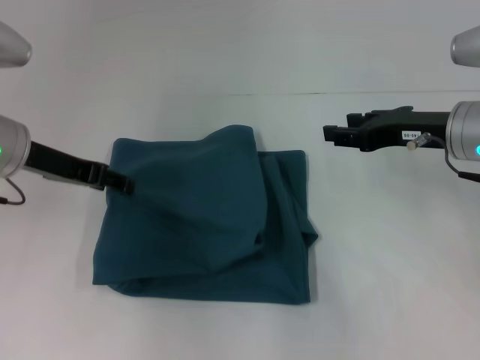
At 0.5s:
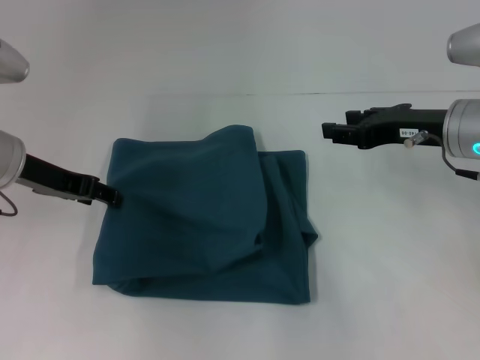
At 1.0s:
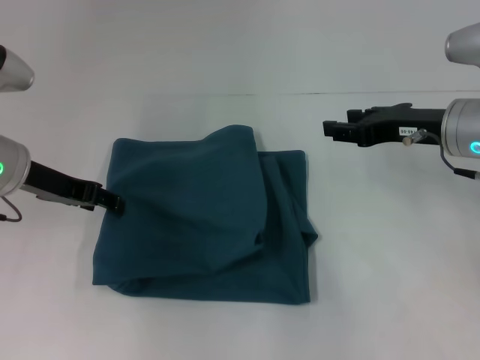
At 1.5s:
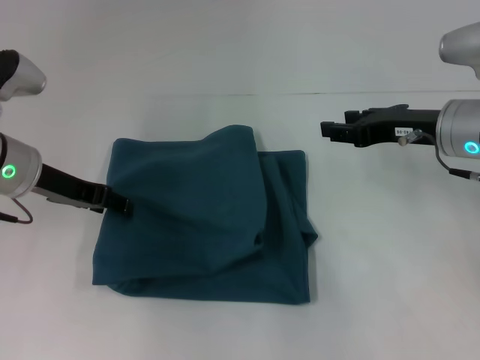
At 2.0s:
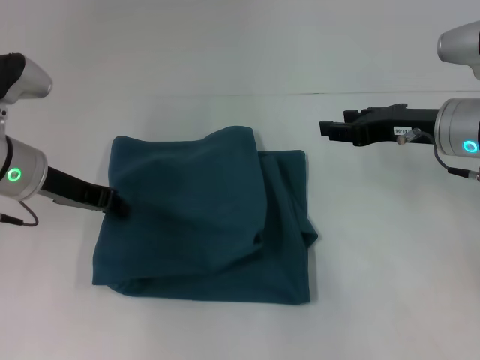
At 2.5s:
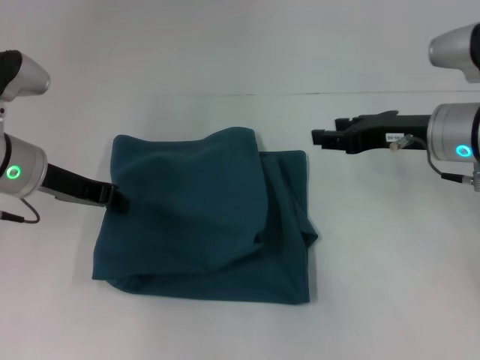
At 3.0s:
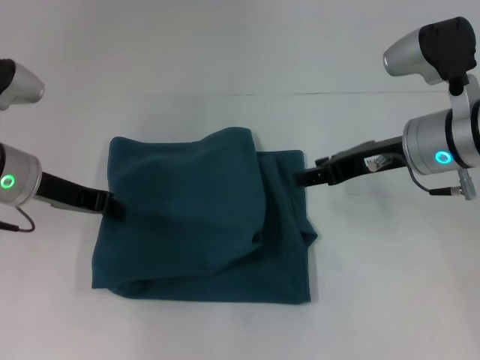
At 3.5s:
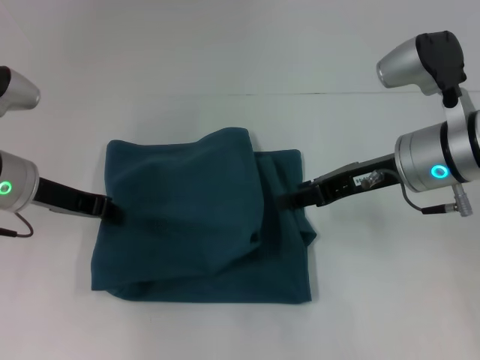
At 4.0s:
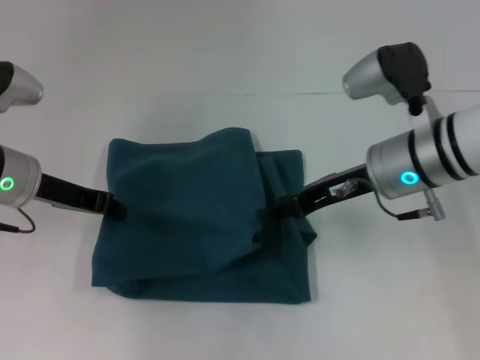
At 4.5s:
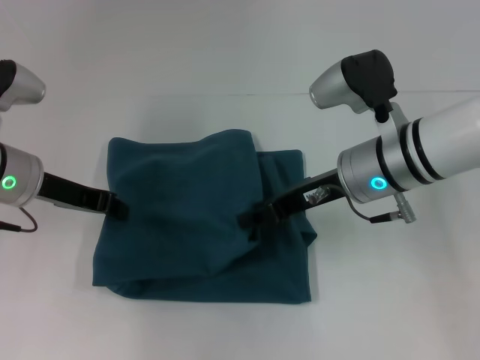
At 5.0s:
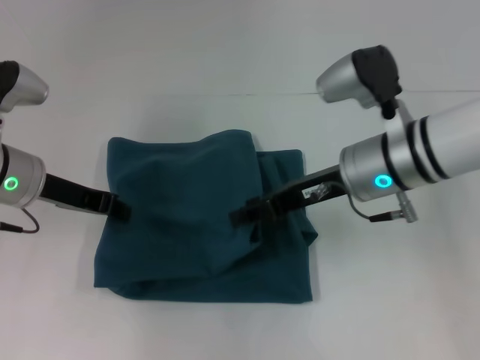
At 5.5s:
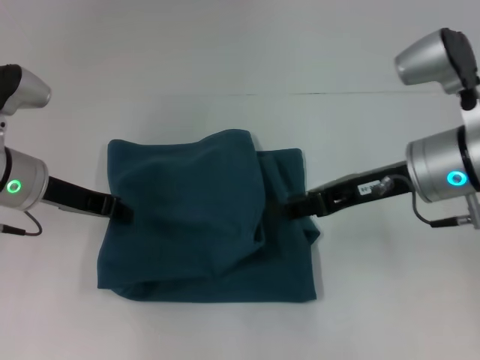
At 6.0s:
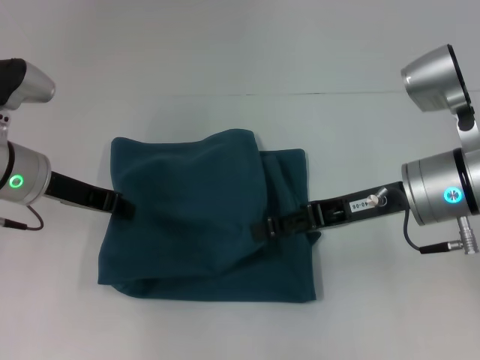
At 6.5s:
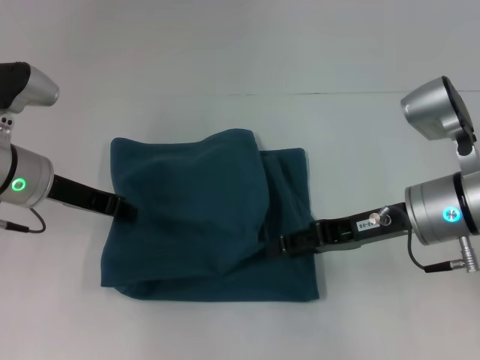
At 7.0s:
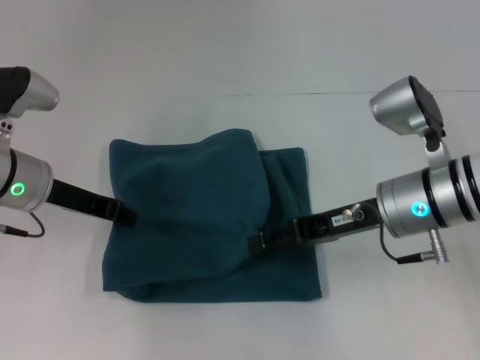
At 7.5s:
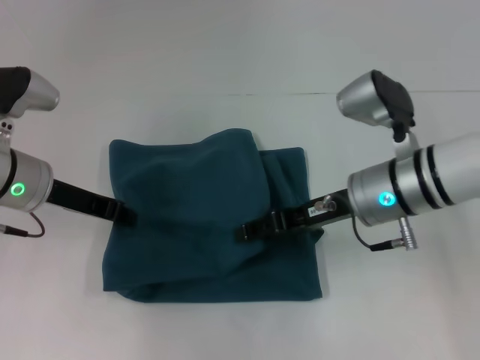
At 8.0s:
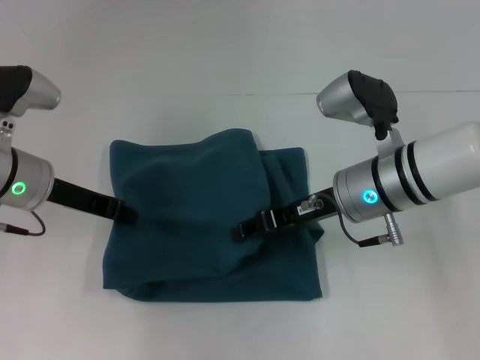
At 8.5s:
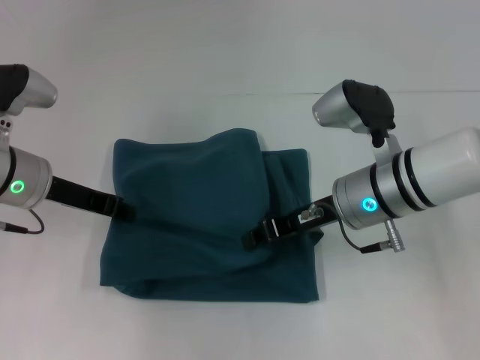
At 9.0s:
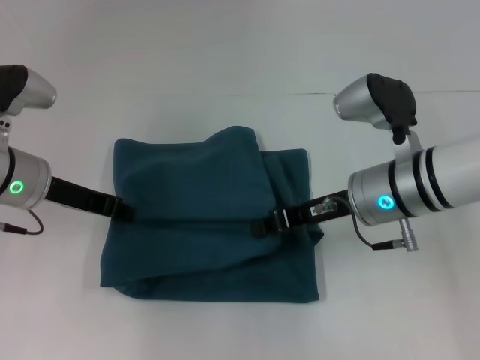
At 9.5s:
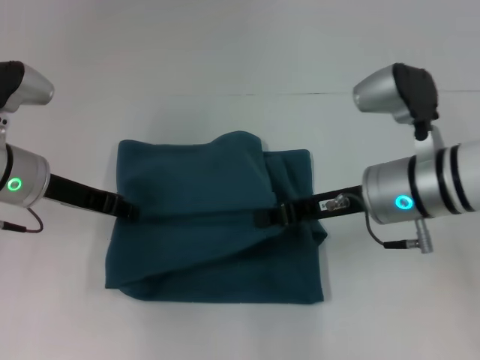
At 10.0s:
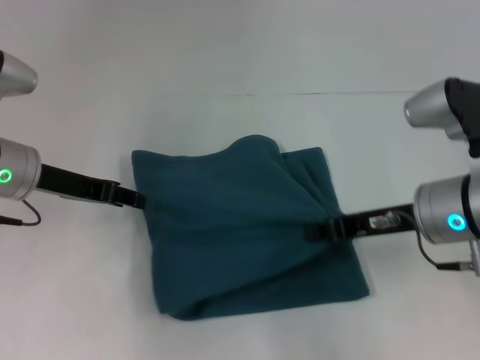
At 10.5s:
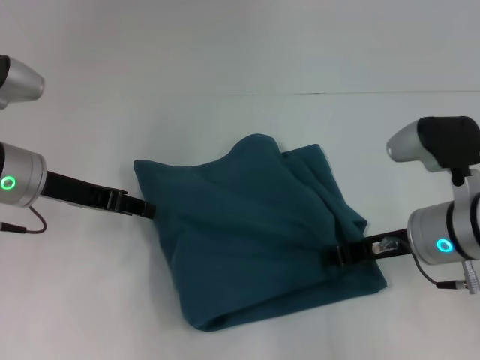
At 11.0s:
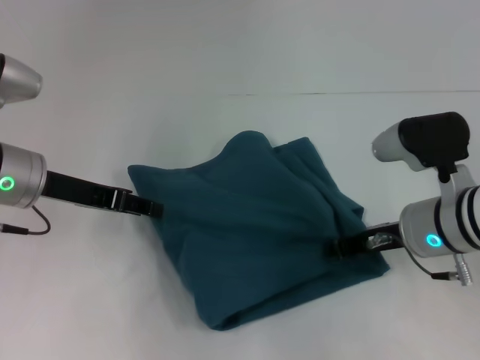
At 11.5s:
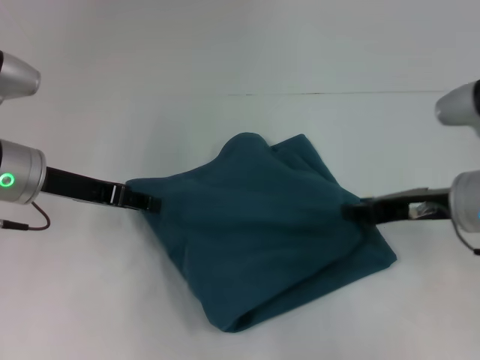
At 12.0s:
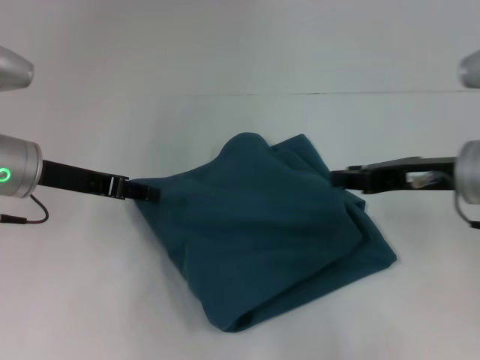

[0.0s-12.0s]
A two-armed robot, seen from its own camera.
0.0s to 2.0s: The left gripper closes.
2.0s to 4.0s: The right gripper shifts approximately 5 cm to the left.
6.0s to 8.0s: The right gripper shifts by some 5 cm.
8.0s to 10.0s: The left gripper opens up. Meanwhile the right gripper is displaced to the right and backward by some 10 cm, and closes.
10.0s to 12.0s: The right gripper opens its fingers.

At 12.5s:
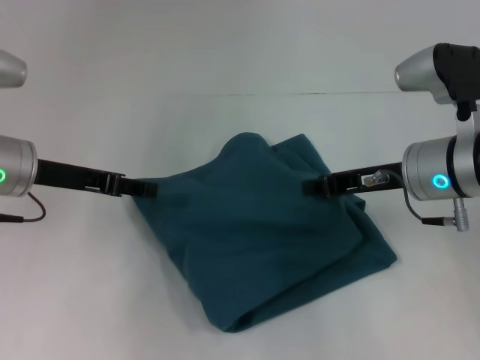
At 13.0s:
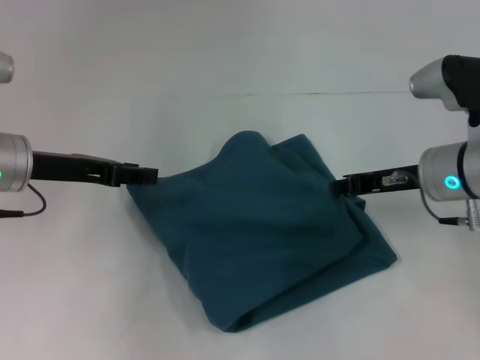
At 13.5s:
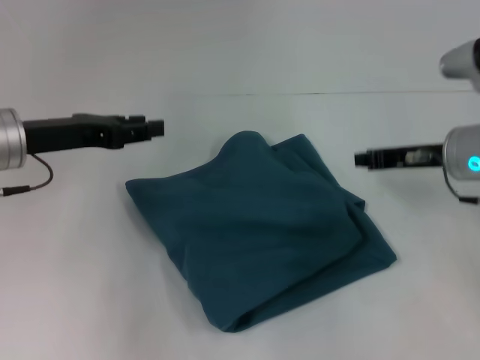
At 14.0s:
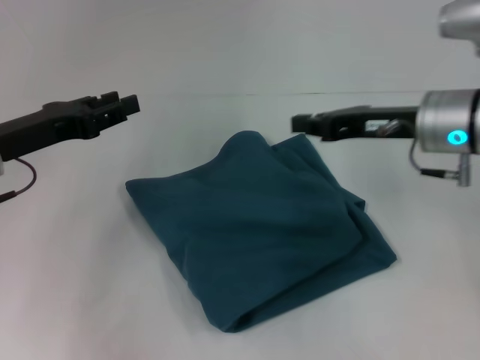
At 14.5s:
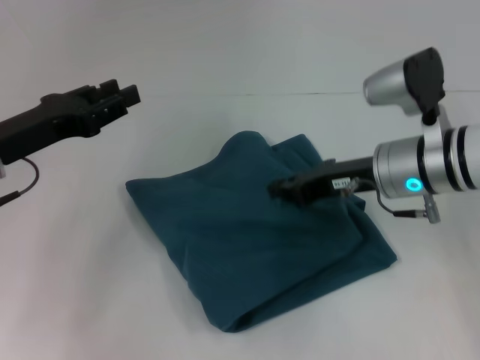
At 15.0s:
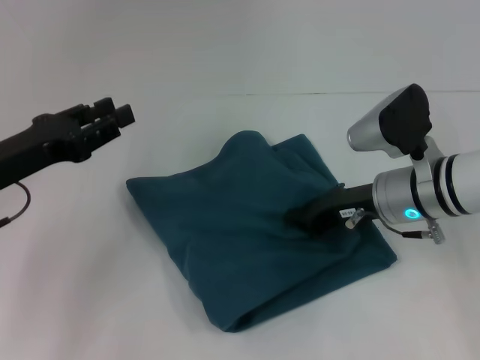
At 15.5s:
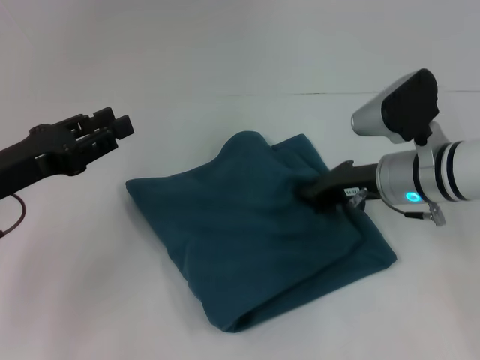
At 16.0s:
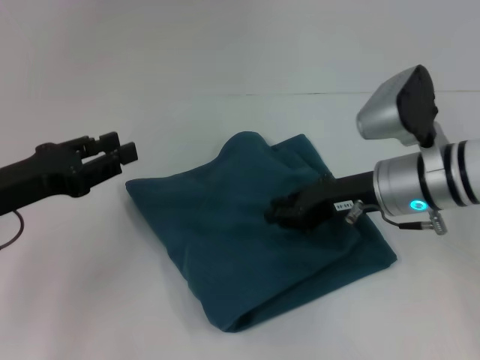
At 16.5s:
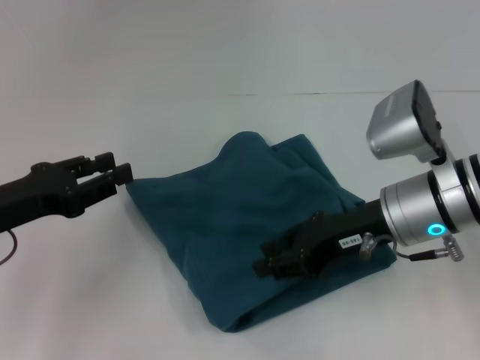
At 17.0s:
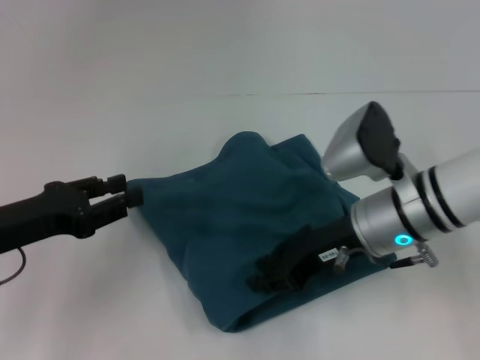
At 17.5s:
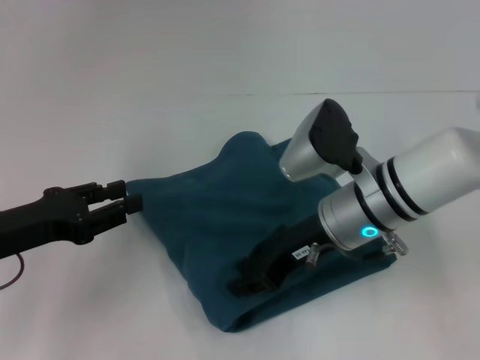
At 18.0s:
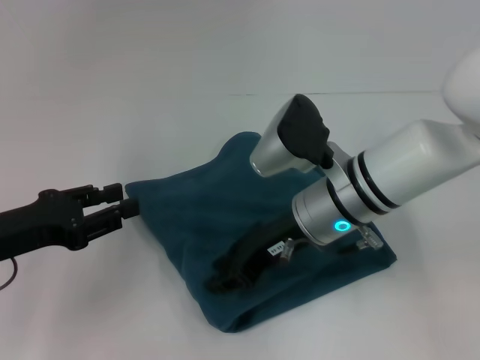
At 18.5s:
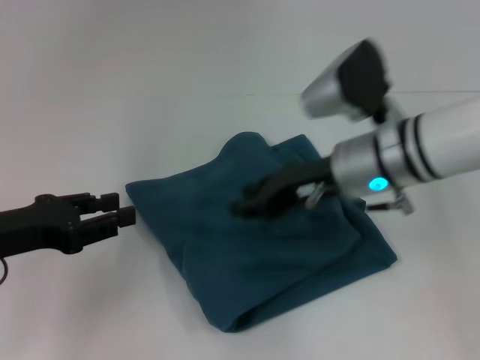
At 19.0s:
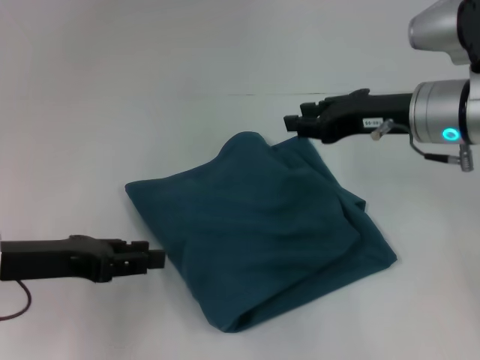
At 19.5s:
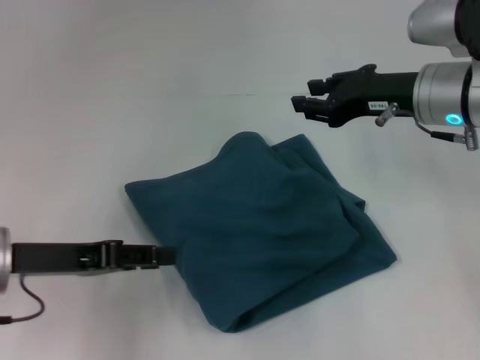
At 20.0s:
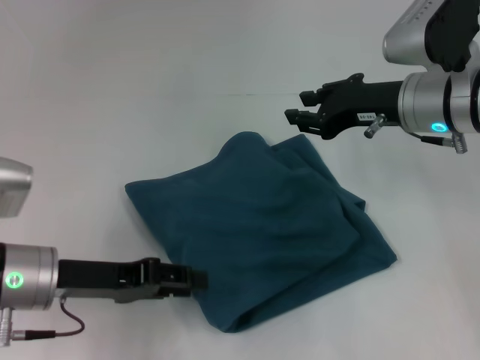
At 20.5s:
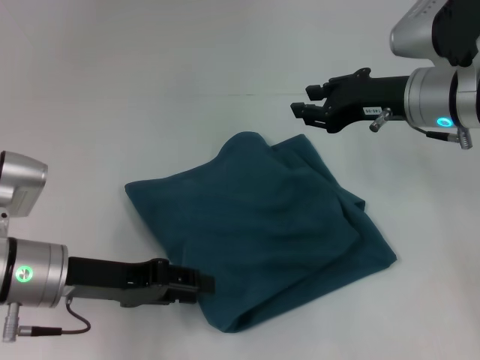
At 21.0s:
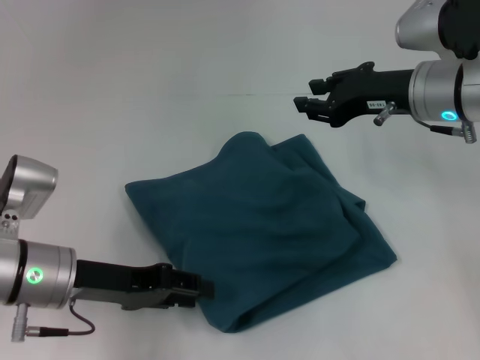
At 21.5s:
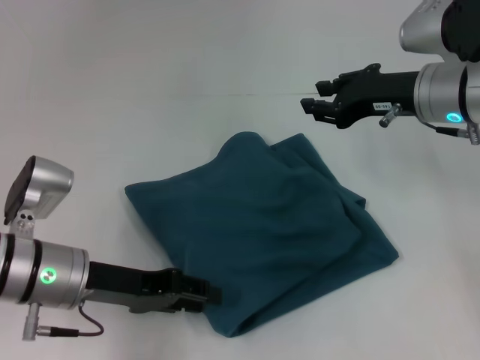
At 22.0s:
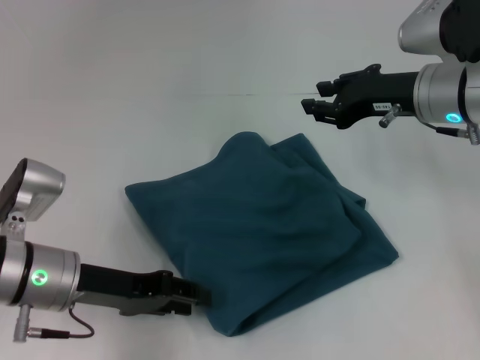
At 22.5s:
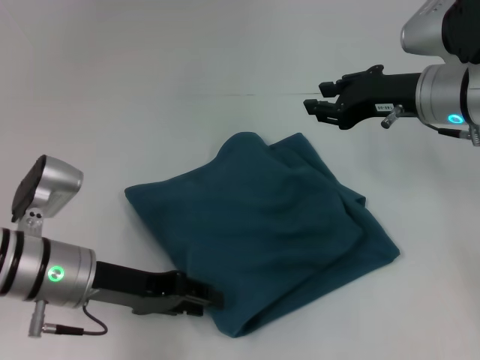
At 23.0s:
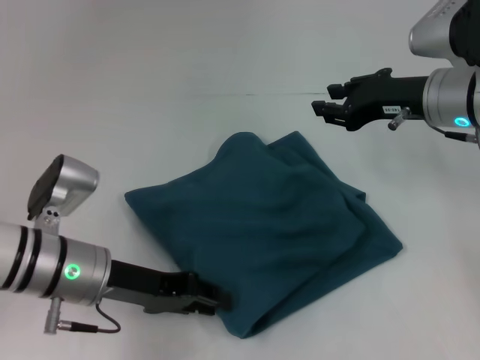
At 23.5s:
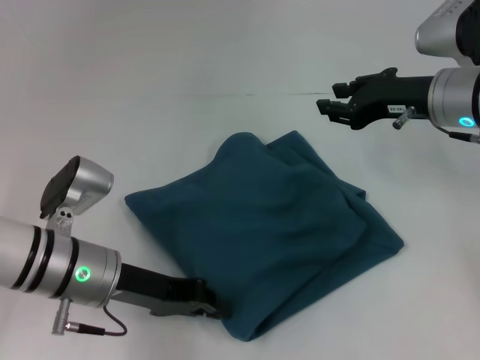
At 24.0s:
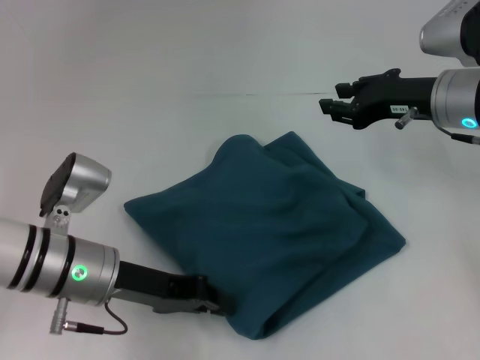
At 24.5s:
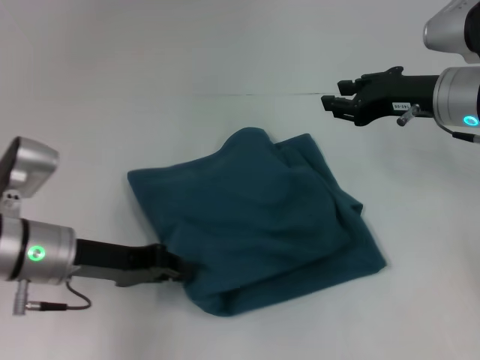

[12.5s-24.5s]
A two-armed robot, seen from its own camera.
14.5s to 16.5s: The left gripper shifts approximately 5 cm backward. The right gripper opens its fingers.
16.5s to 18.5s: The right gripper changes place by approximately 5 cm.
18.5s to 20.5s: The two grippers go about 5 cm to the right.
20.5s to 22.5s: There are only small adjustments of the grippers.
22.5s to 24.5s: The left gripper closes up.

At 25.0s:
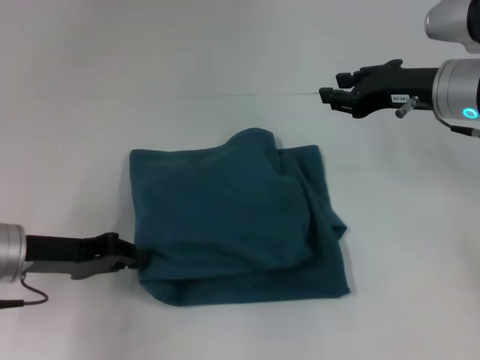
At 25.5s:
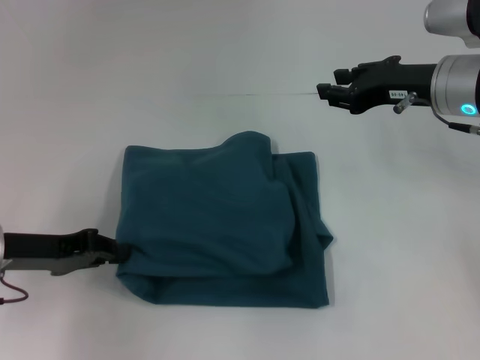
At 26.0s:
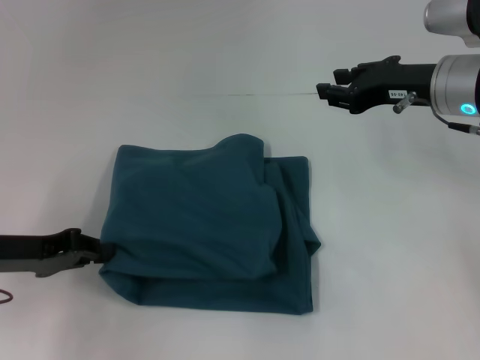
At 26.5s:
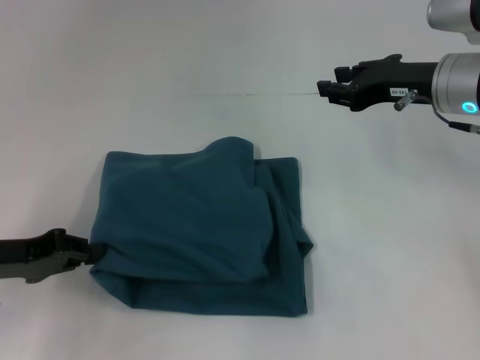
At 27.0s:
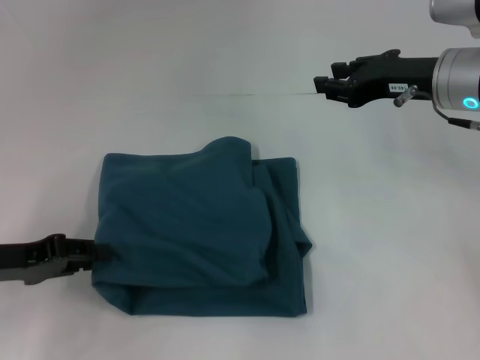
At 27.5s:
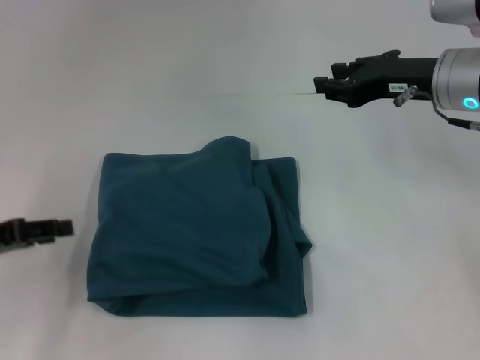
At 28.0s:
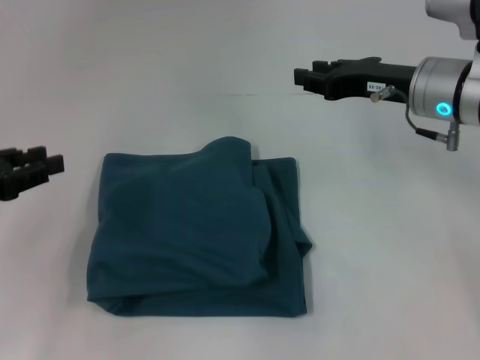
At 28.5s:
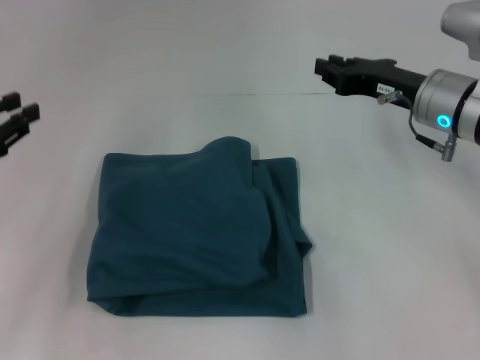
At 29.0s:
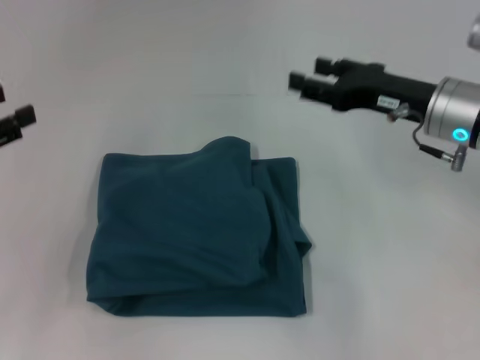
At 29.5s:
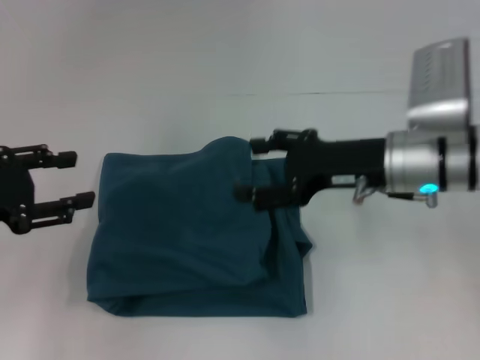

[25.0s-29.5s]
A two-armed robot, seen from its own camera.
25.0s to 27.0s: The left gripper ends up some 5 cm from where it was.
27.0s to 29.5s: The left gripper moves upward, approximately 5 cm, and opens up. The right gripper shifts approximately 5 cm downward, and opens up.
